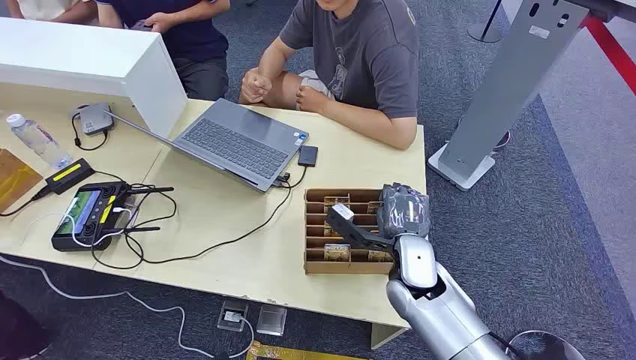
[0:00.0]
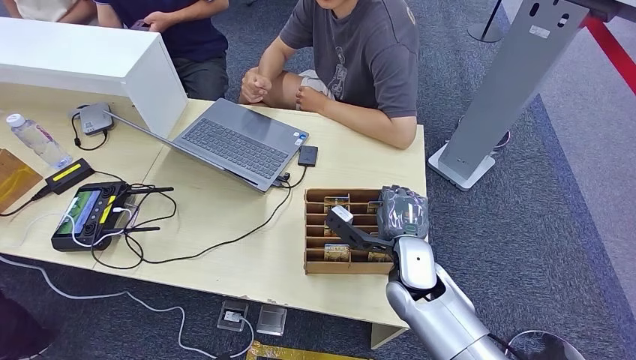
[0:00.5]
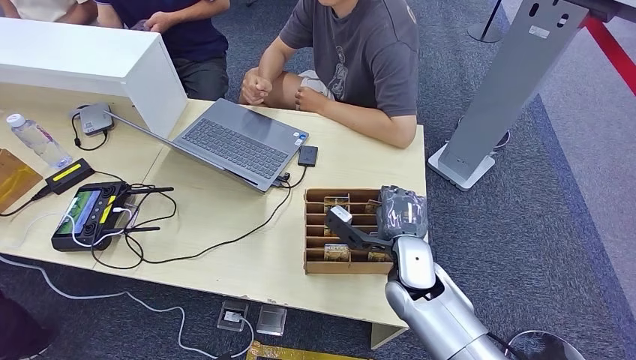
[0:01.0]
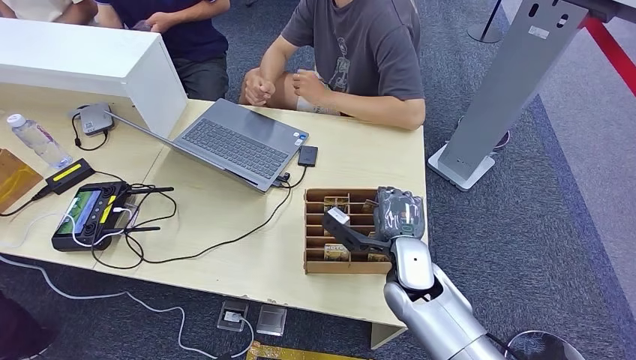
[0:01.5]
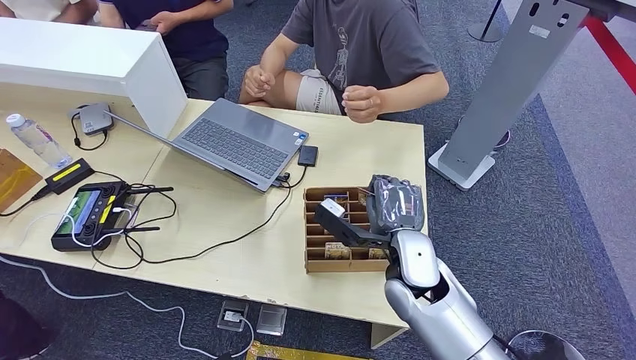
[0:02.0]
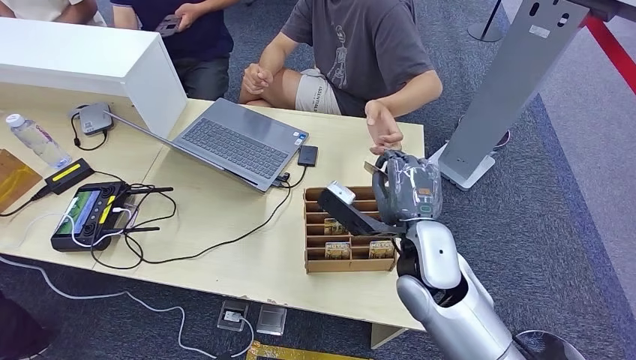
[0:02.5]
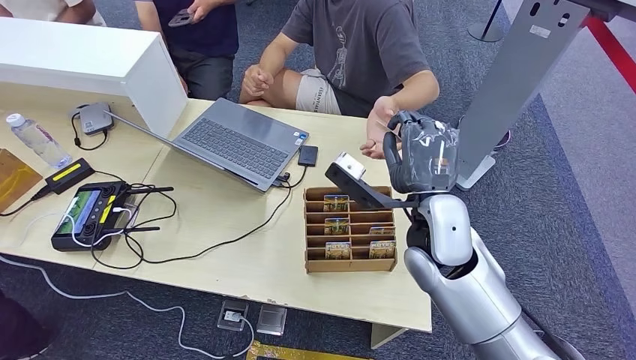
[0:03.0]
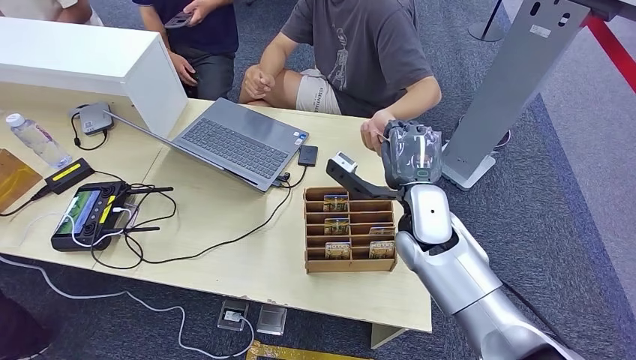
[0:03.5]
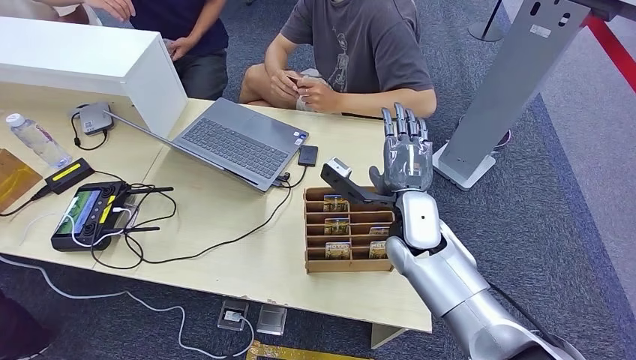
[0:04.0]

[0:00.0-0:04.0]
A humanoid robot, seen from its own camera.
Step, 0:00.0 to 0:02.0: Pick up the key card from the card box.
Step, 0:02.5 to 0:04.0: Hand the key card to the target.
0:02.0 to 0:04.0: The right hand heads forward, covering some 5 cm, and goes upward and returns, roughly 10 cm each way.

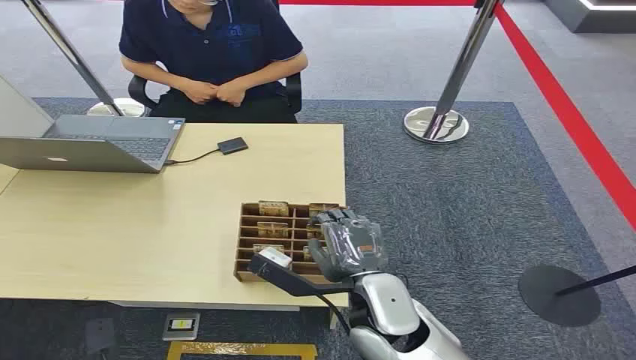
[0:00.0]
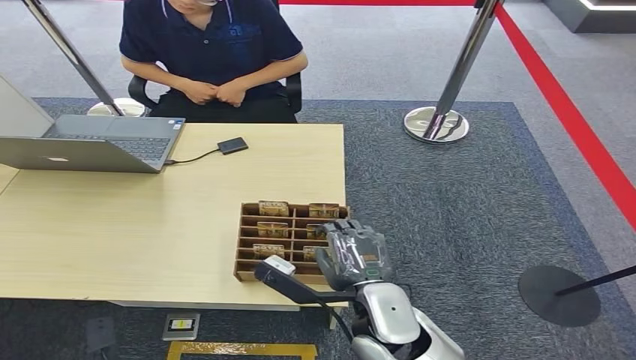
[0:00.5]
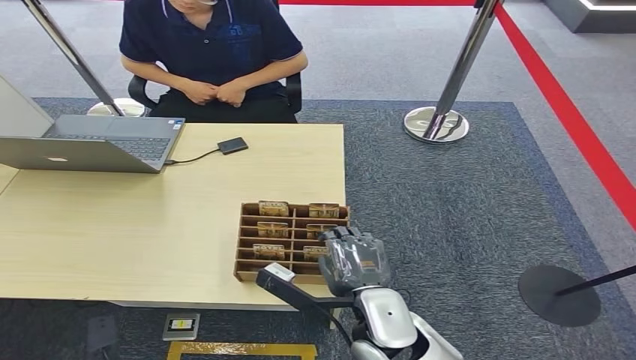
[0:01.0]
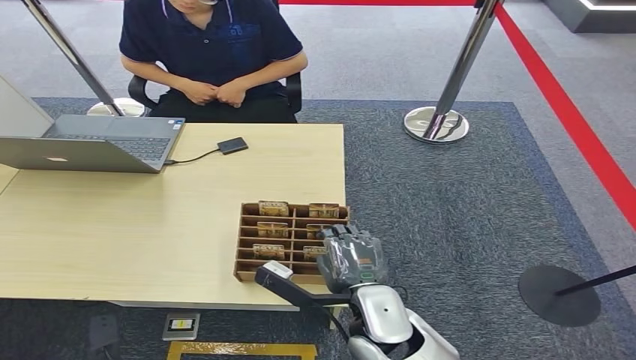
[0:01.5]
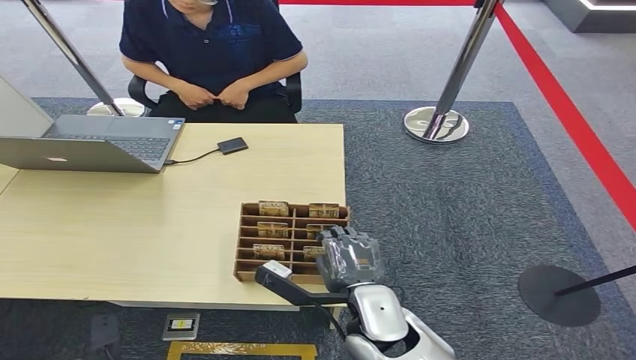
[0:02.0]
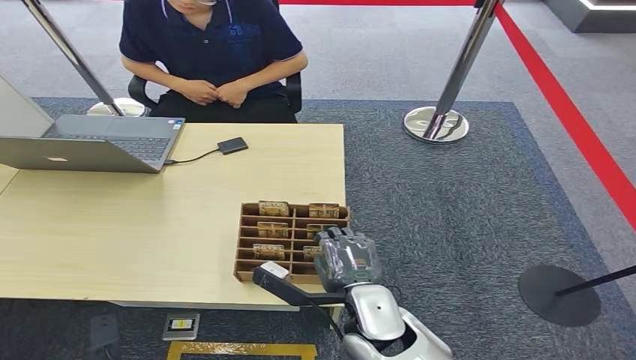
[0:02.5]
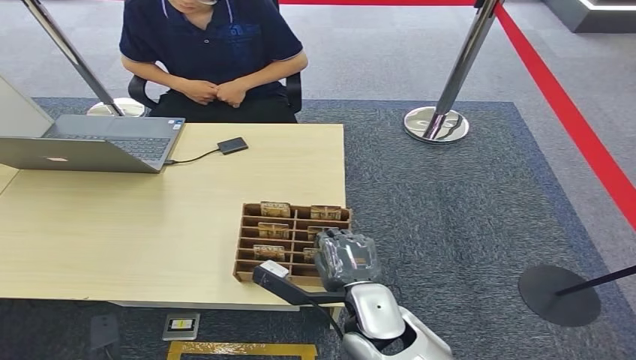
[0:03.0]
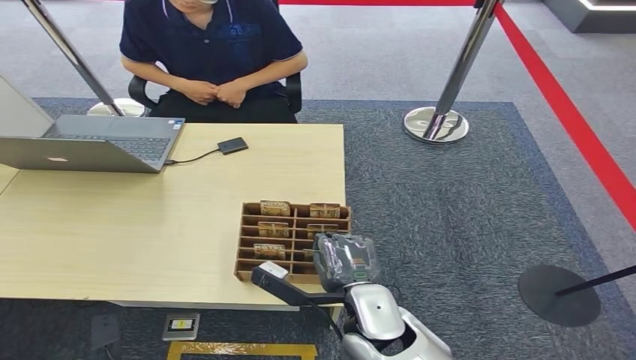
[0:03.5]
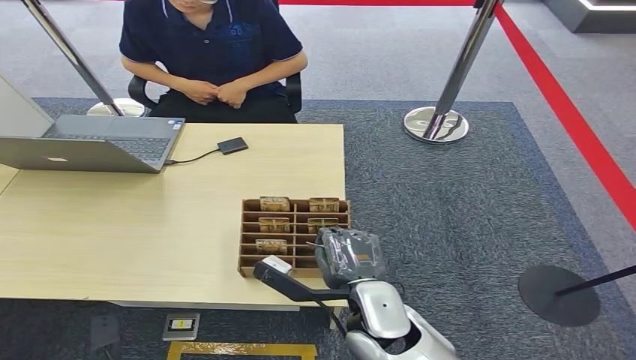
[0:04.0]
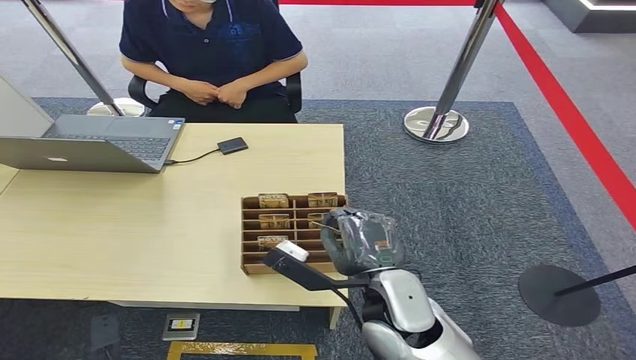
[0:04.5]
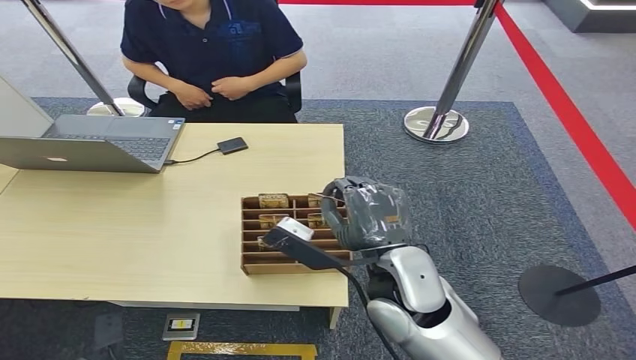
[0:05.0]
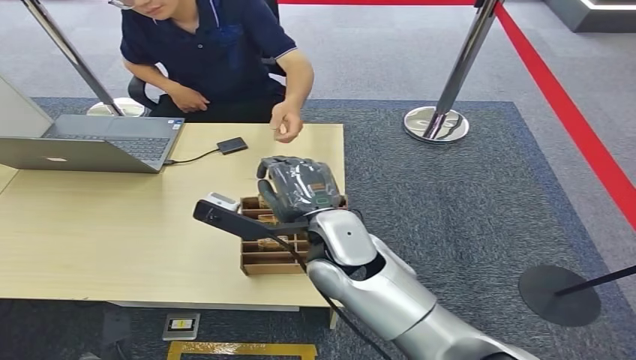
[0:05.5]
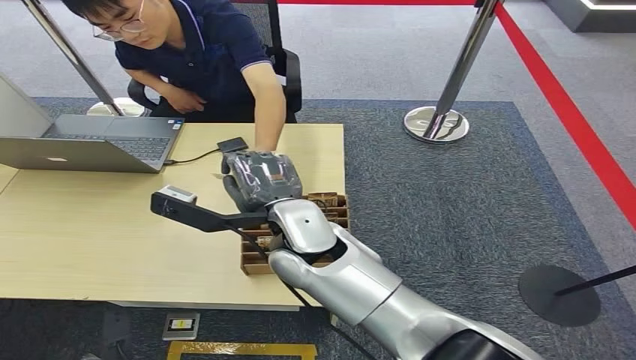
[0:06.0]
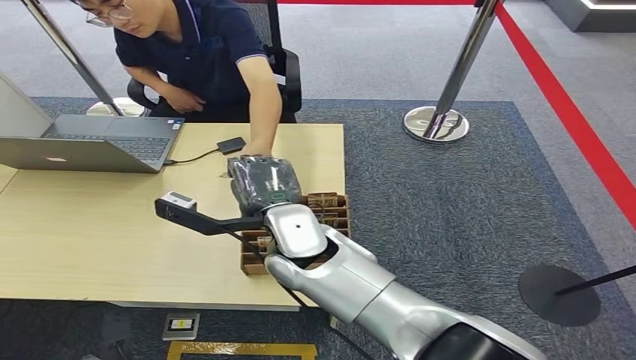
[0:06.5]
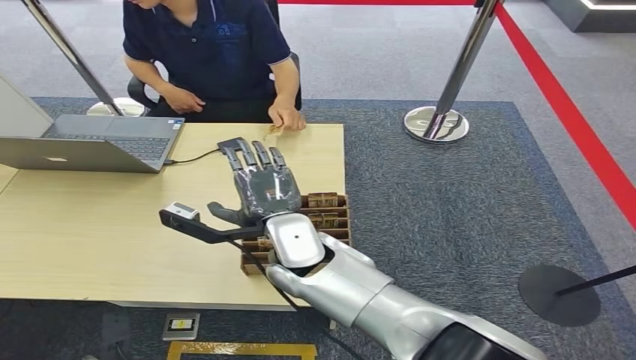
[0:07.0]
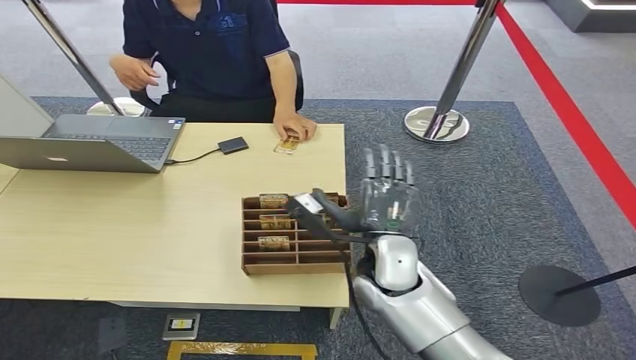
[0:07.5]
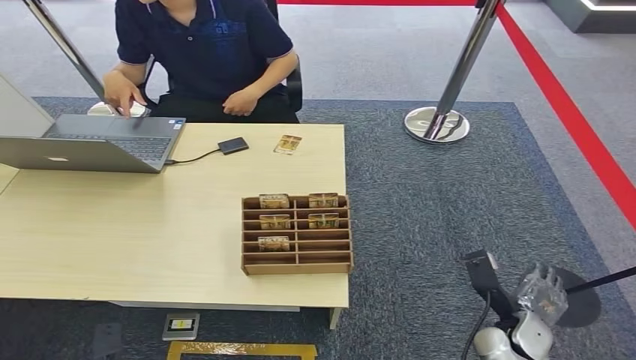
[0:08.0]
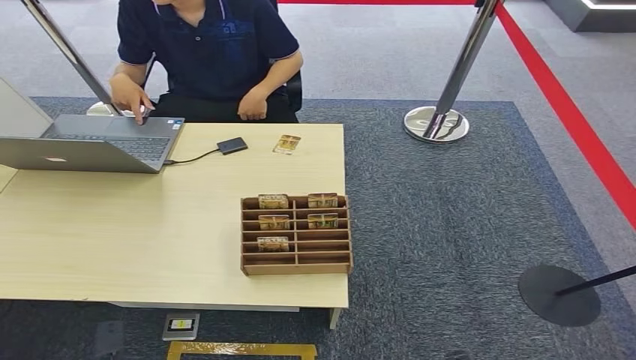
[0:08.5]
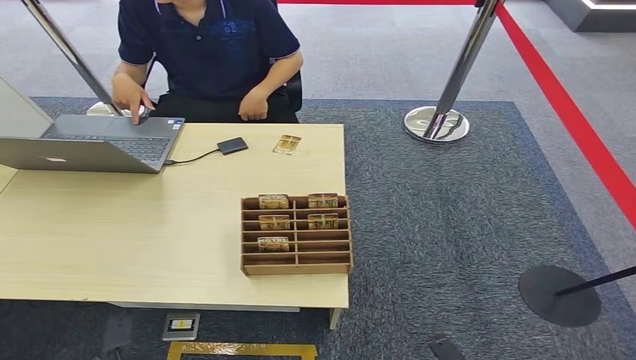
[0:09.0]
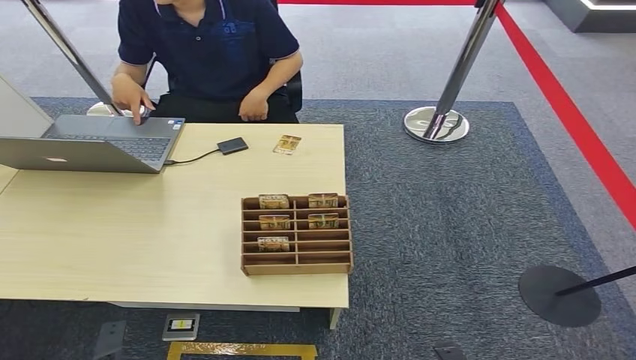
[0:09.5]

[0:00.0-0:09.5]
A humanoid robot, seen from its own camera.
Step, 0:00.0 to 0:05.5: Pick up the key card from the card box.
Step, 0:06.0 to 0:09.0: Hand the key card to the target.
0:02.0 to 0:04.0: Neither hand changes place.
0:04.0 to 0:05.5: The right hand heads upward and forward, covering about 15 cm.
0:05.5 to 0:07.5: The right hand heads downward and to the right, covering some 10 cm.
0:07.5 to 0:09.5: The right hand shifts roughly 40 cm backward, downward and to the right.
